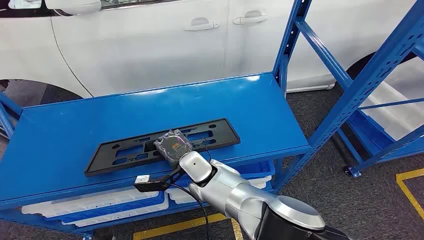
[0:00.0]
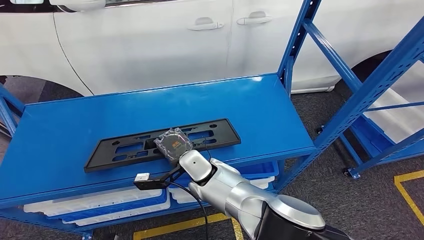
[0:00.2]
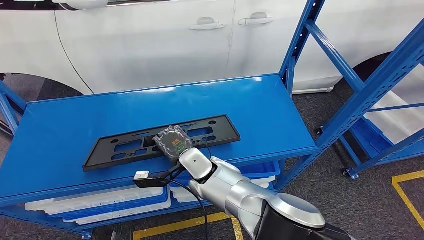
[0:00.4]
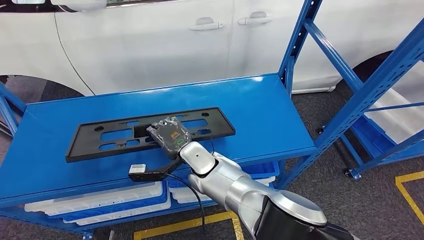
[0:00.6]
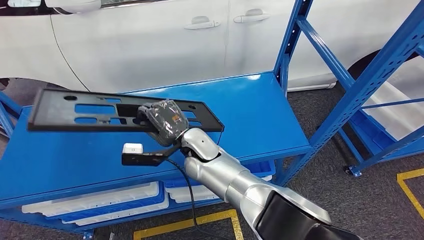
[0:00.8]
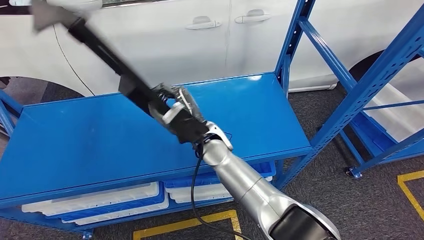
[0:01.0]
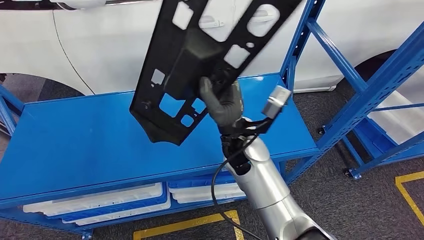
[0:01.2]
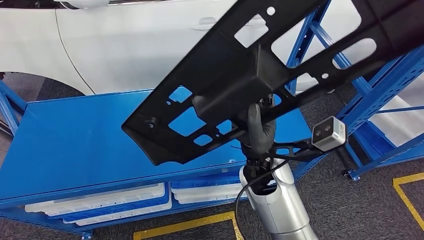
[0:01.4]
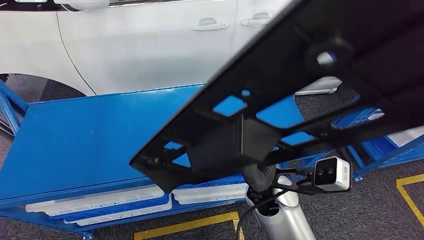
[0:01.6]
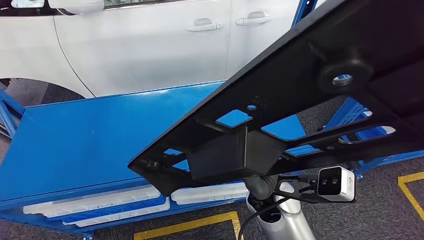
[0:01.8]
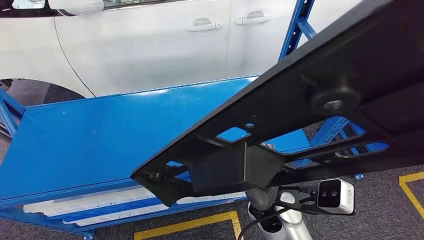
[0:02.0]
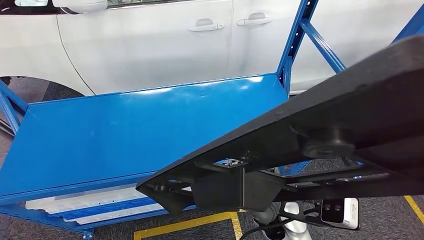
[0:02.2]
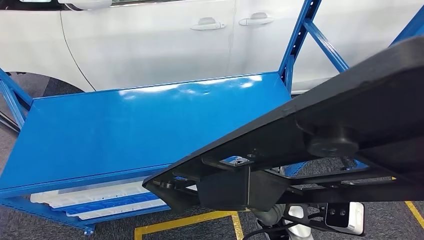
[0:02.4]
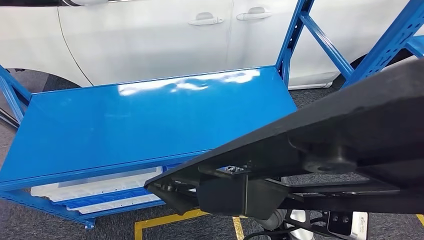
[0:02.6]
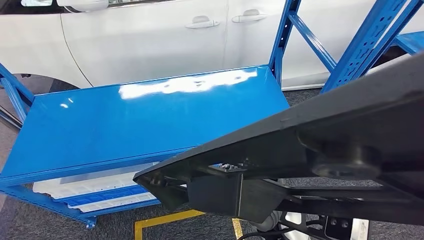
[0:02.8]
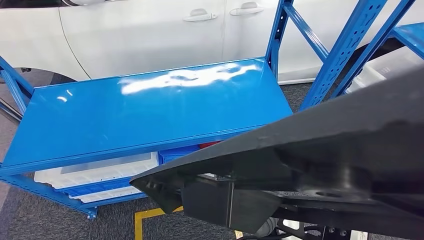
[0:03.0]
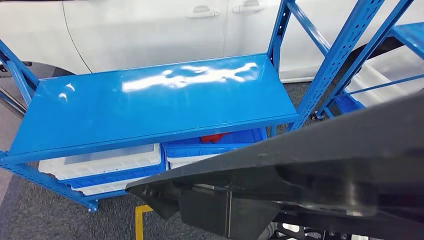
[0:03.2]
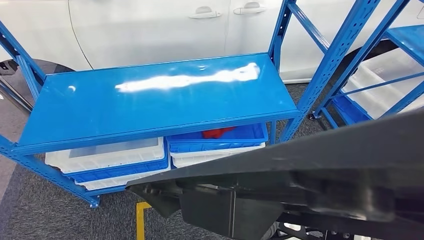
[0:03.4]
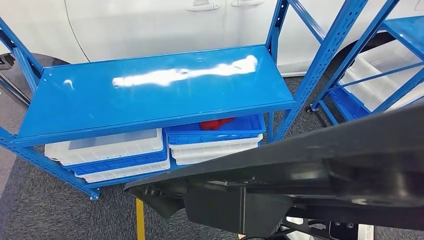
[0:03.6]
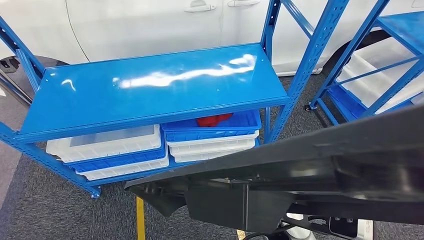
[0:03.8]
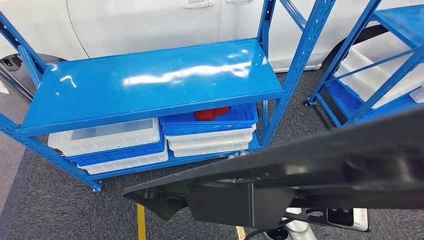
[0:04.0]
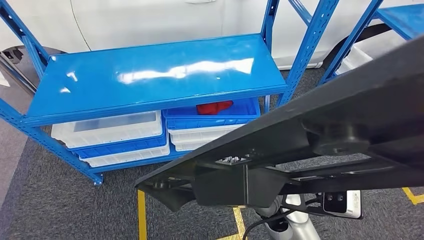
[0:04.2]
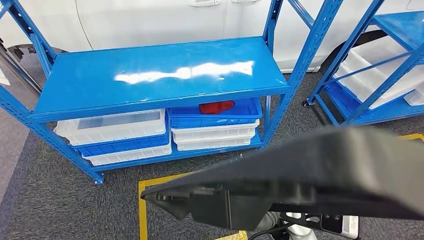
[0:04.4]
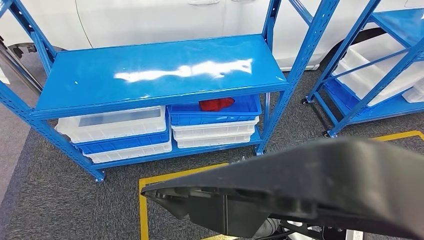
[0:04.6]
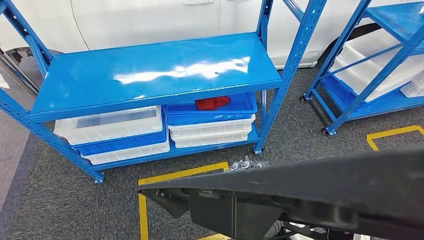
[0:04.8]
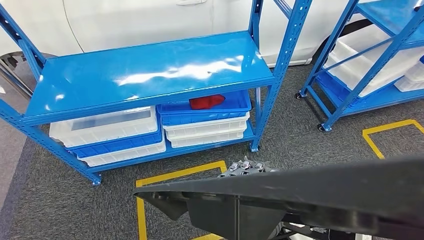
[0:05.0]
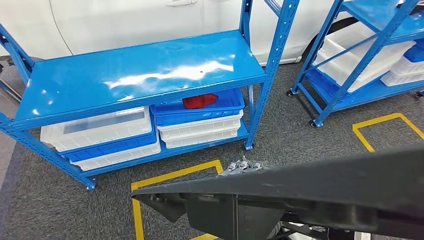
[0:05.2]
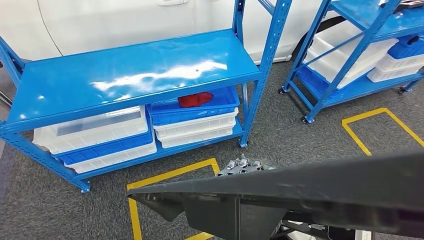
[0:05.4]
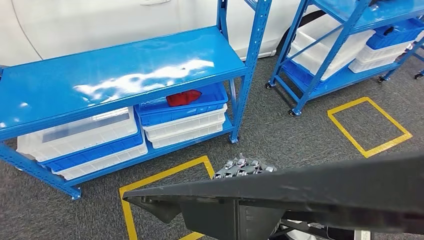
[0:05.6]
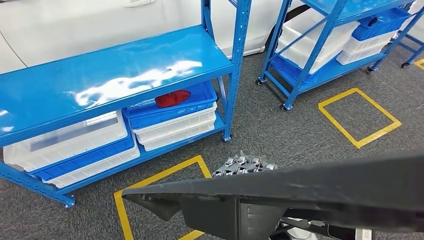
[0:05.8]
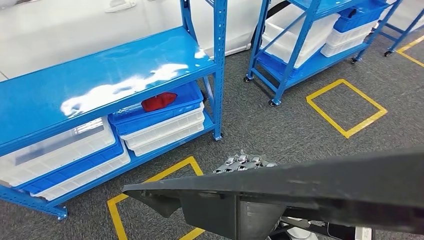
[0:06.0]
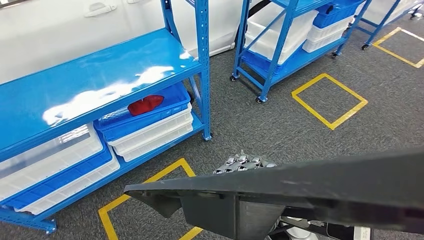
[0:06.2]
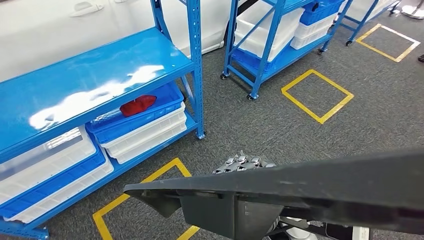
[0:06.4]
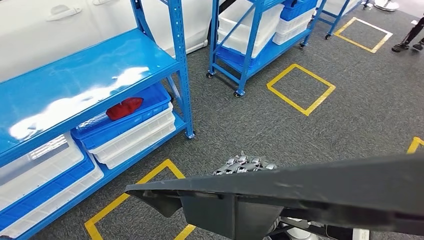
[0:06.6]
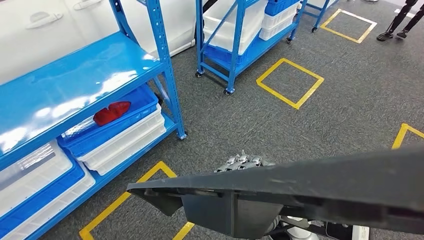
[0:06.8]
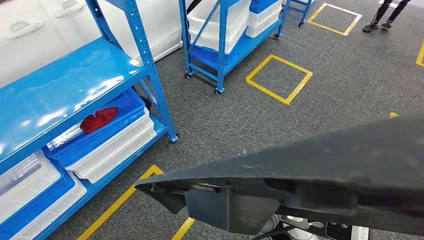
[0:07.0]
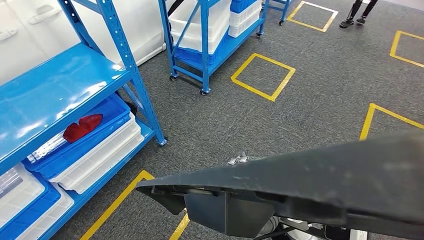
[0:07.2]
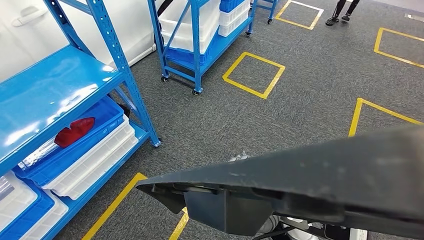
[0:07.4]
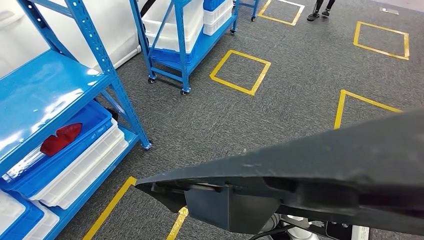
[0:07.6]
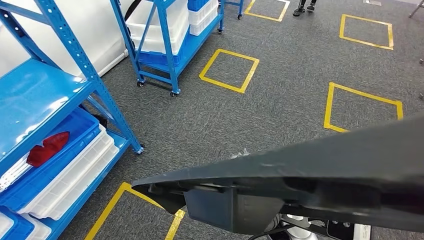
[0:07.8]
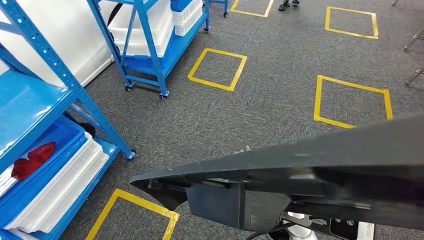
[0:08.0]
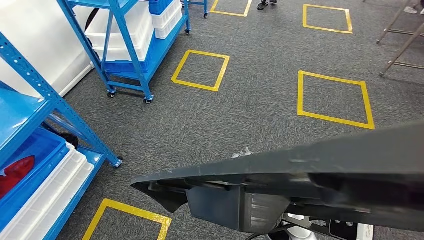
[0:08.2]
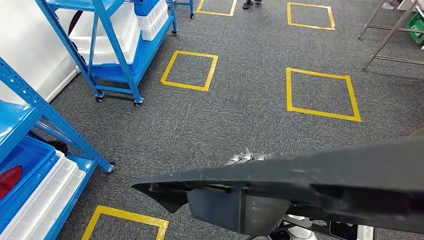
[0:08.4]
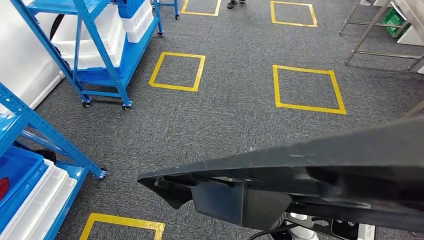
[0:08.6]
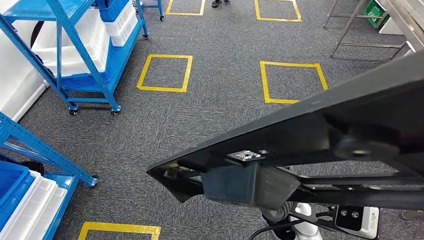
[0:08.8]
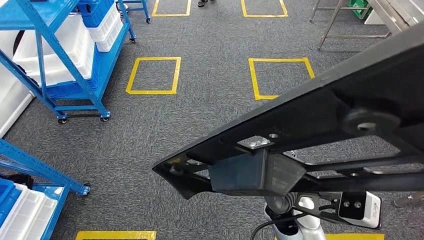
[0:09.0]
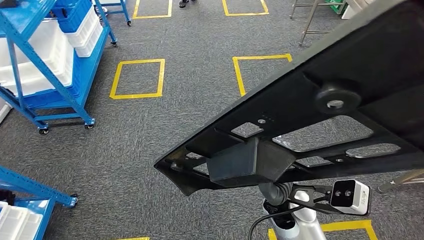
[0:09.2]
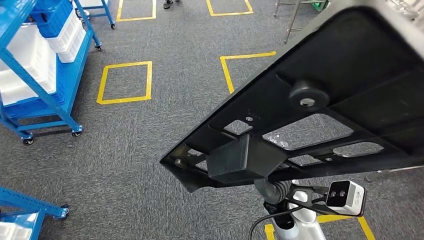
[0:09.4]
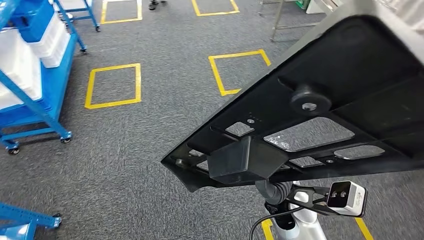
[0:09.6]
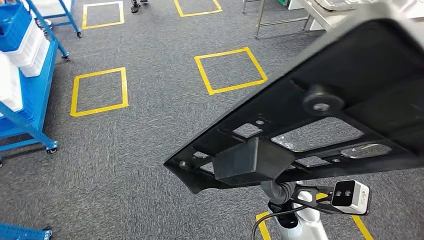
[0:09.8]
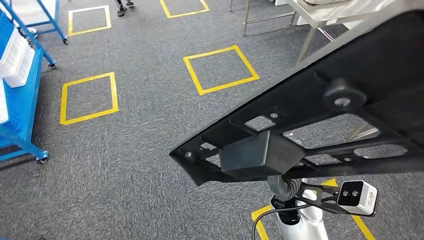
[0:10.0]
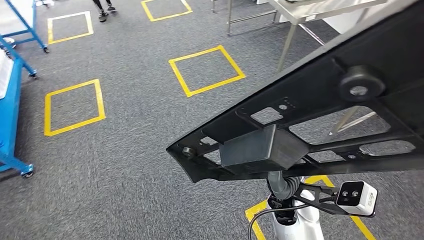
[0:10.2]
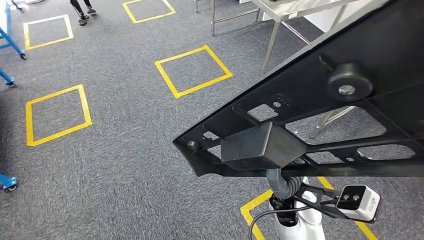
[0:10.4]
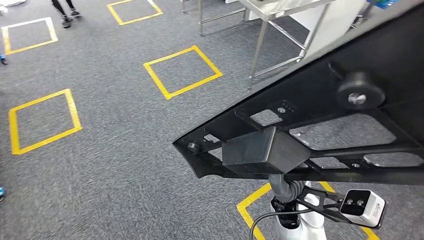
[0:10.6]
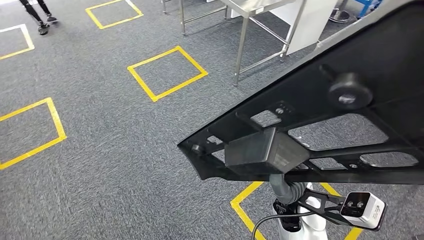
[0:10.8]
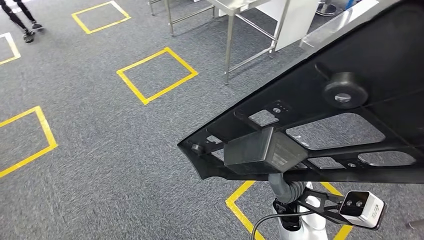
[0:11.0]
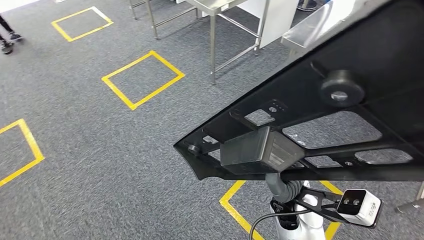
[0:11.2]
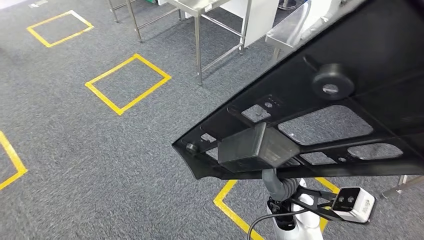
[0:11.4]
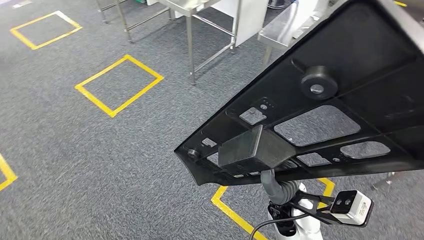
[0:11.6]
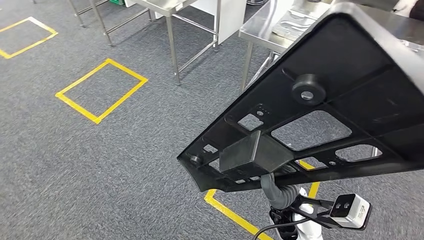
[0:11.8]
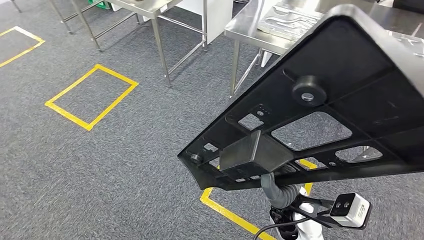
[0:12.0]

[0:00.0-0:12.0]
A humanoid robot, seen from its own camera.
Step, 0:00.0 to 0:05.8: Pick up the large material from the shelf.

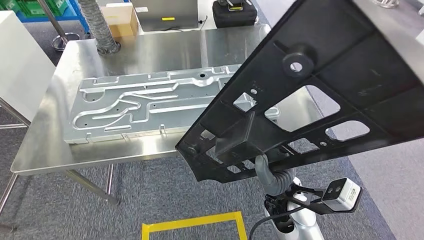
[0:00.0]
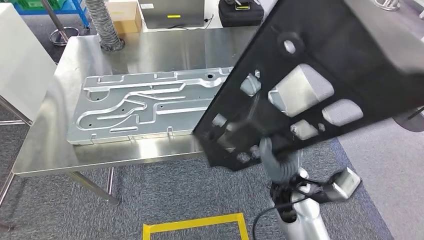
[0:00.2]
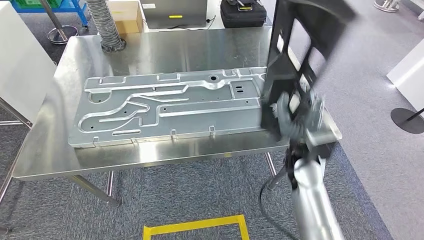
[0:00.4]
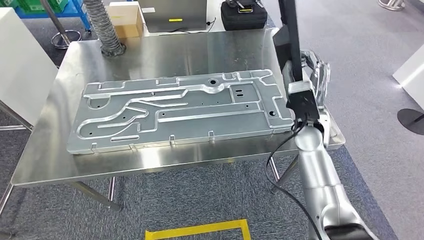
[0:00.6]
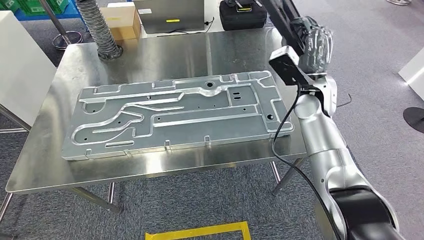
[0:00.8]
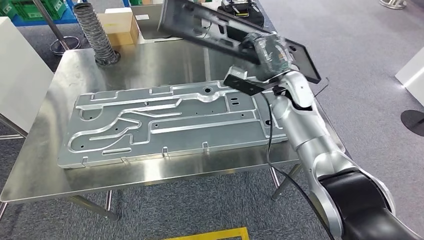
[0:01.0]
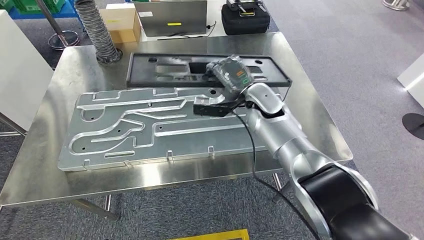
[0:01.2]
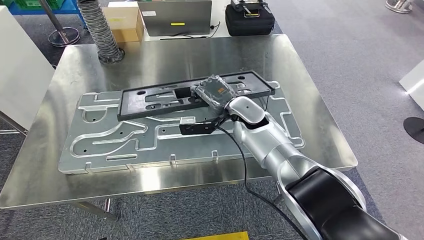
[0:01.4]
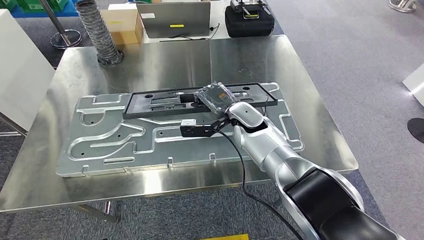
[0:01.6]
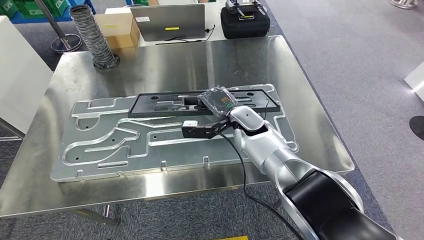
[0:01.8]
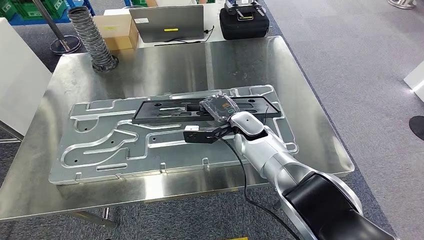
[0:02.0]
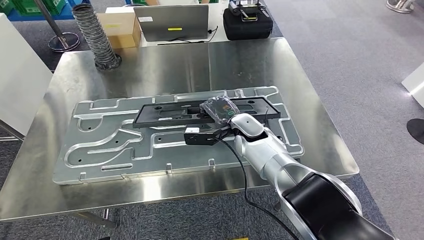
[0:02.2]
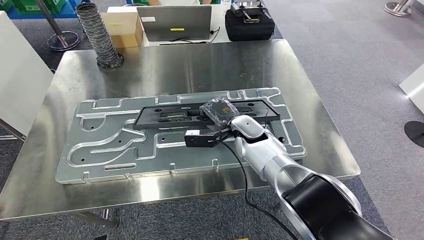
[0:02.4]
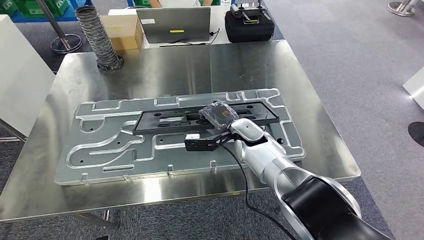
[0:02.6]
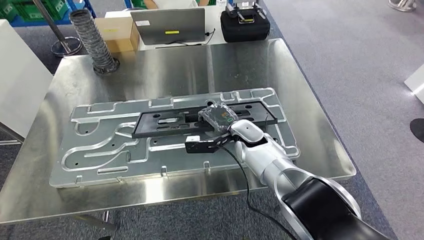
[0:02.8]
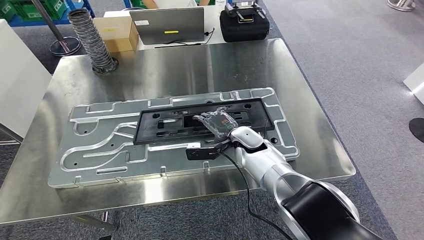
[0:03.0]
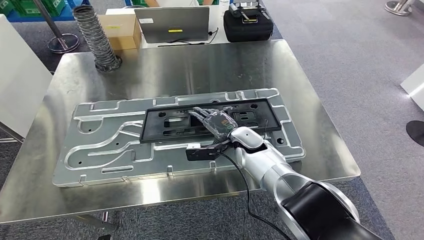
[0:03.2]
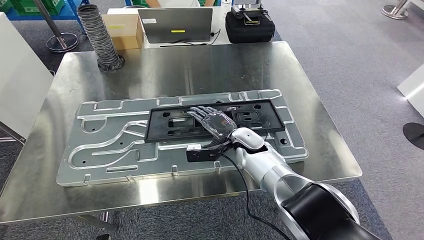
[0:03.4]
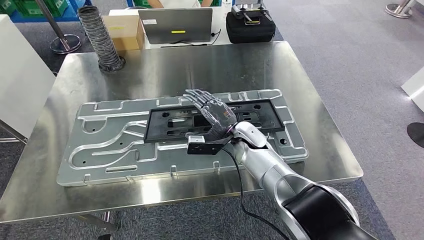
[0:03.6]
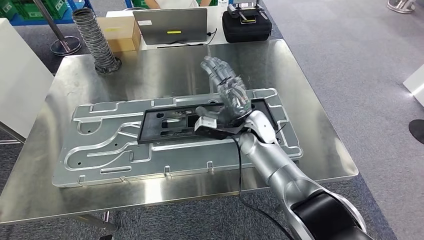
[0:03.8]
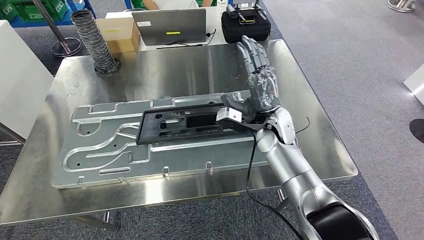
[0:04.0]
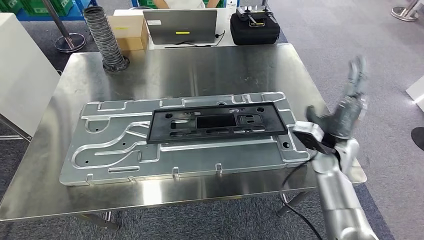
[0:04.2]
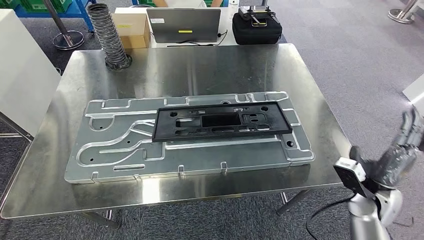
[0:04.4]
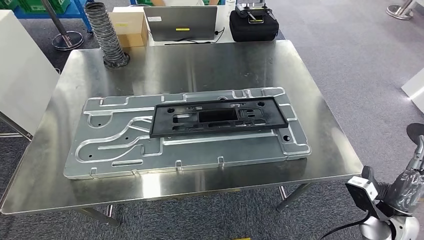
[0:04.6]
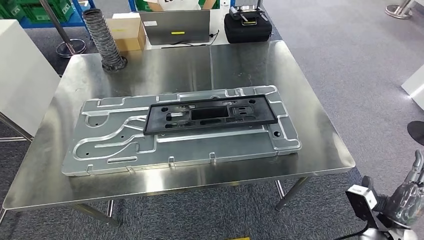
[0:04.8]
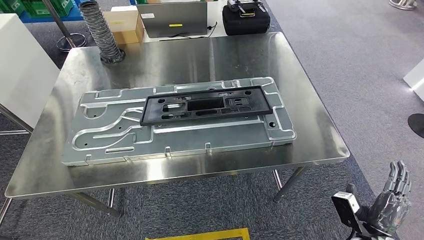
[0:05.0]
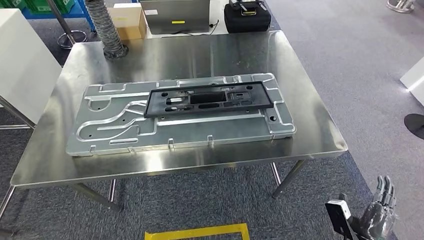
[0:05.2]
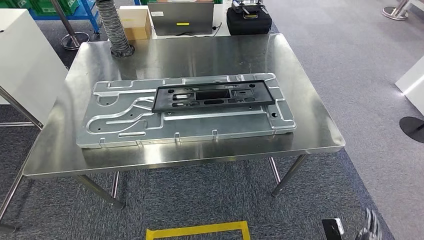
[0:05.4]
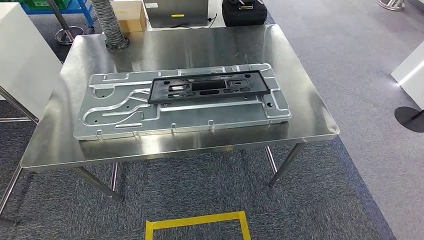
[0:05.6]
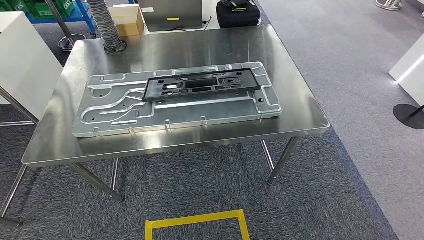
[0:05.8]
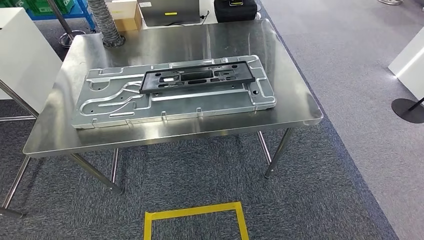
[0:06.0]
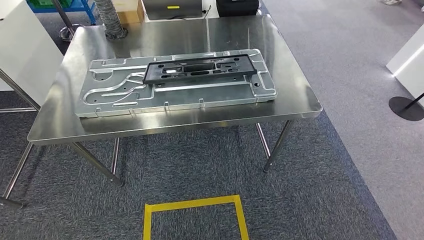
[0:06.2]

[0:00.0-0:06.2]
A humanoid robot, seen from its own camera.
Step, 0:01.6 to 0:03.6: Insert the large material into the corresponding slot on the workbench.
